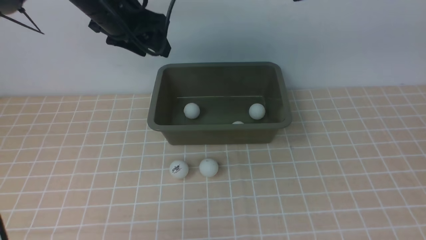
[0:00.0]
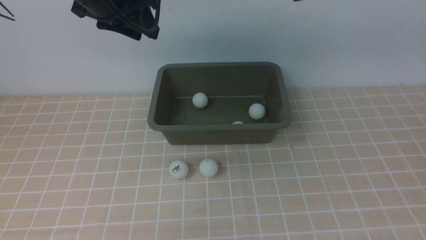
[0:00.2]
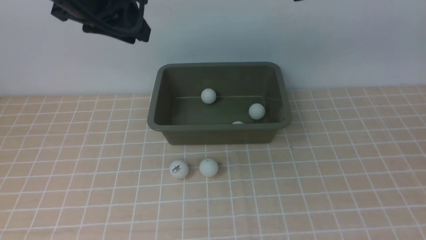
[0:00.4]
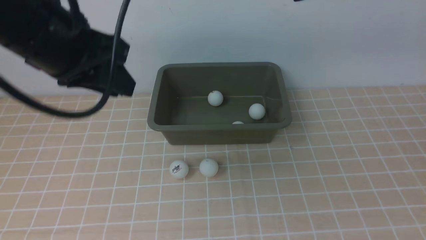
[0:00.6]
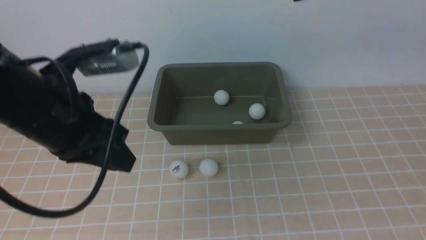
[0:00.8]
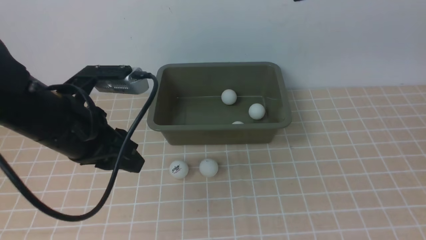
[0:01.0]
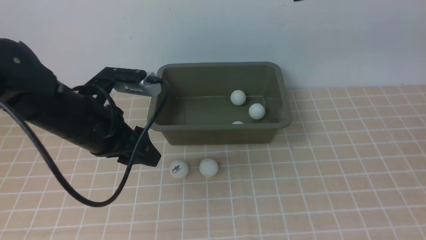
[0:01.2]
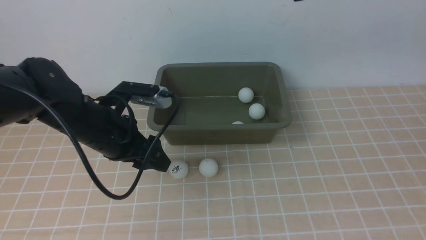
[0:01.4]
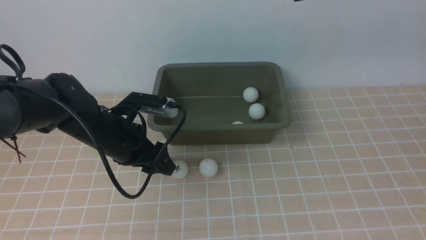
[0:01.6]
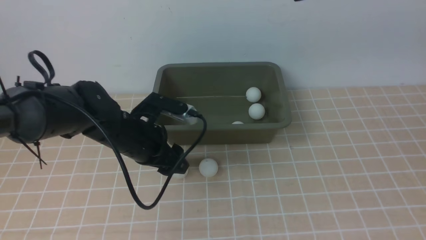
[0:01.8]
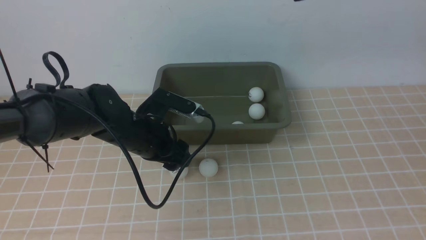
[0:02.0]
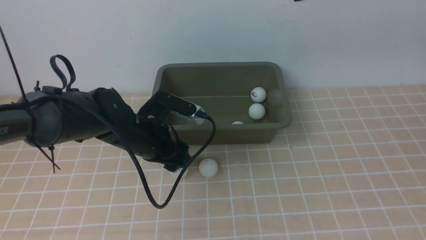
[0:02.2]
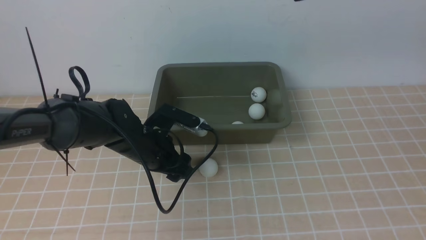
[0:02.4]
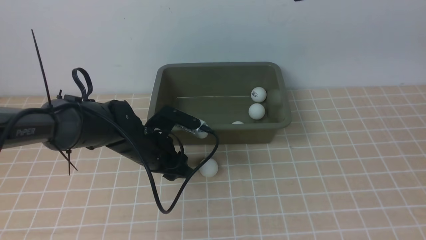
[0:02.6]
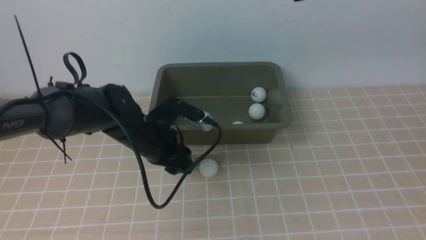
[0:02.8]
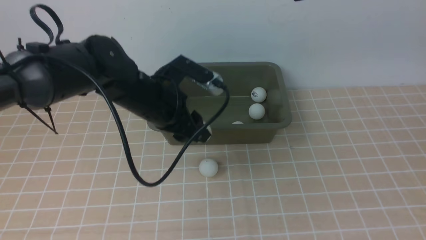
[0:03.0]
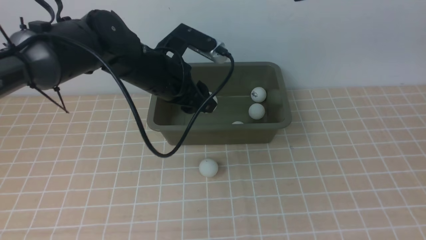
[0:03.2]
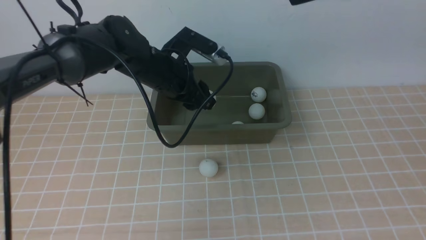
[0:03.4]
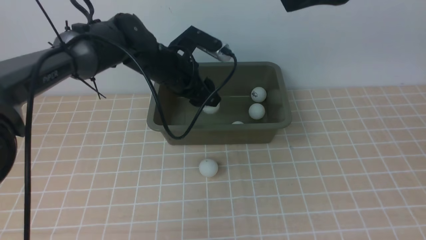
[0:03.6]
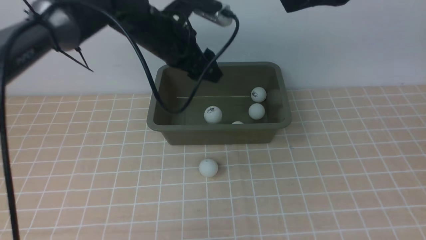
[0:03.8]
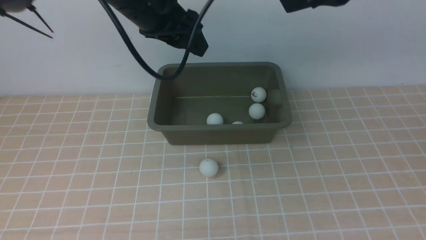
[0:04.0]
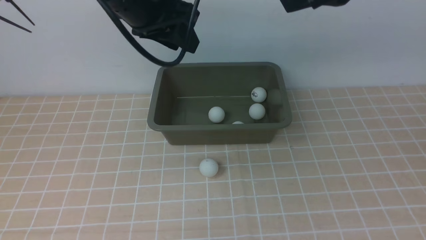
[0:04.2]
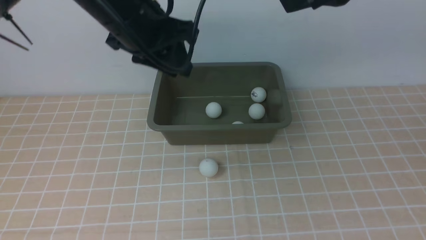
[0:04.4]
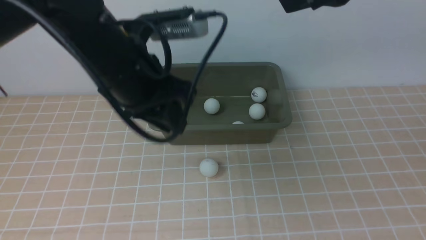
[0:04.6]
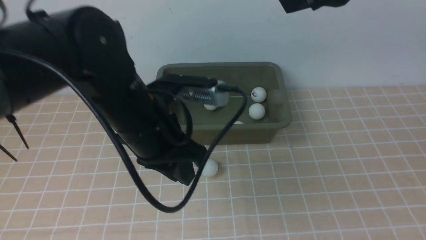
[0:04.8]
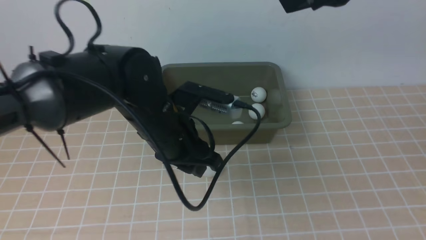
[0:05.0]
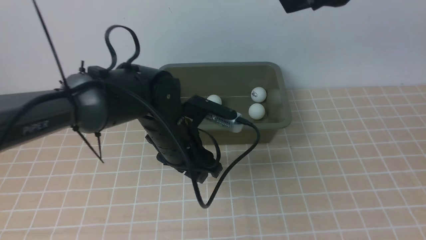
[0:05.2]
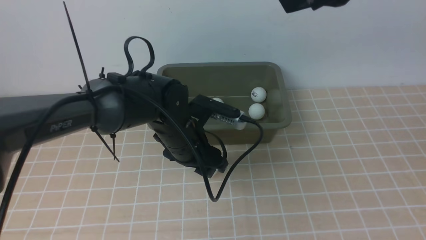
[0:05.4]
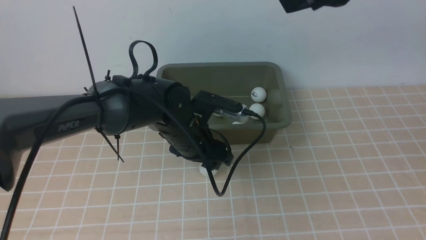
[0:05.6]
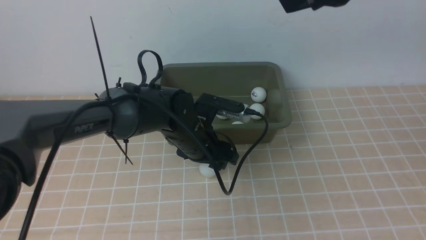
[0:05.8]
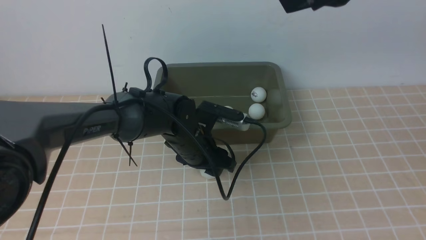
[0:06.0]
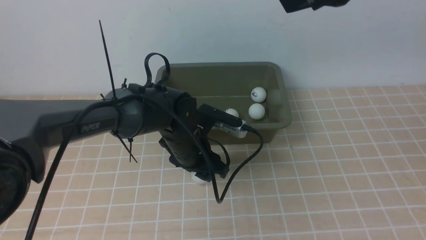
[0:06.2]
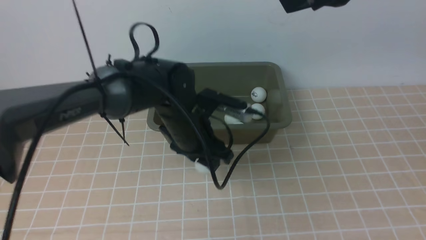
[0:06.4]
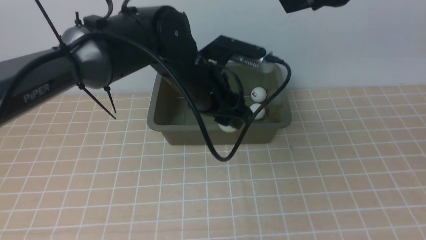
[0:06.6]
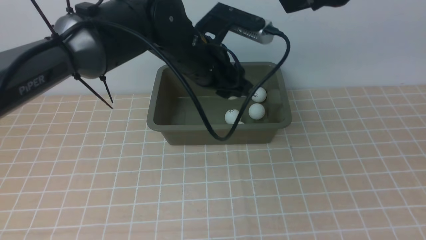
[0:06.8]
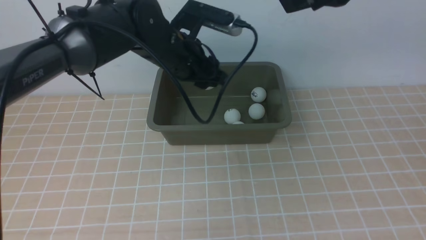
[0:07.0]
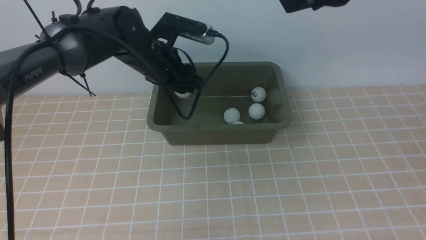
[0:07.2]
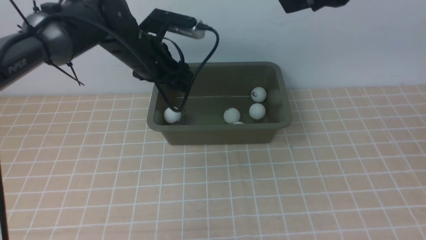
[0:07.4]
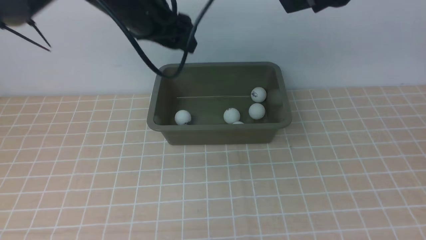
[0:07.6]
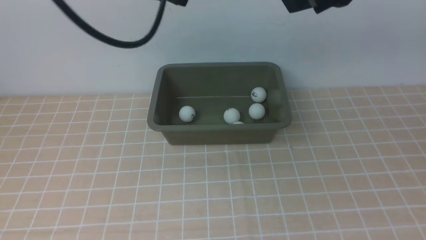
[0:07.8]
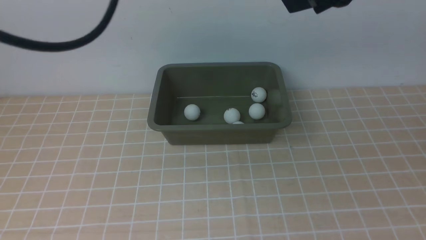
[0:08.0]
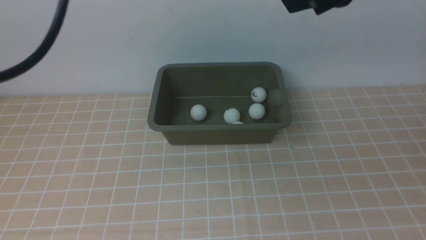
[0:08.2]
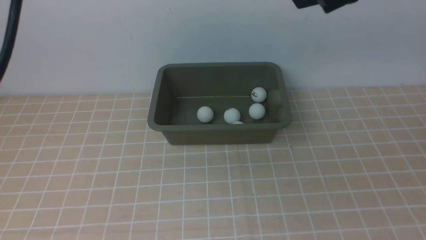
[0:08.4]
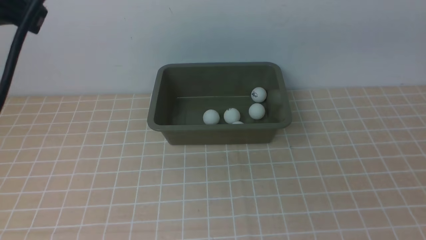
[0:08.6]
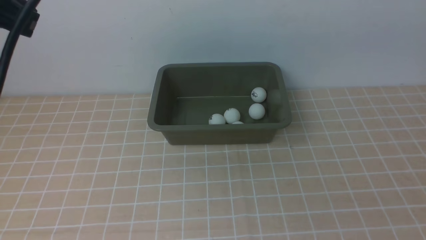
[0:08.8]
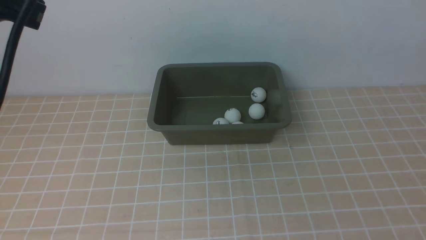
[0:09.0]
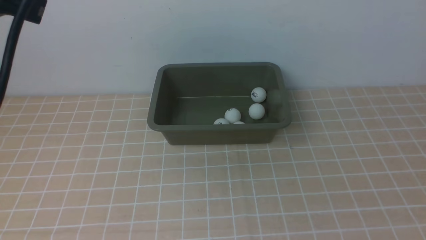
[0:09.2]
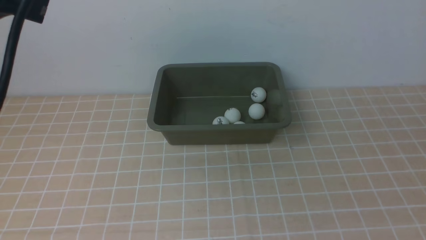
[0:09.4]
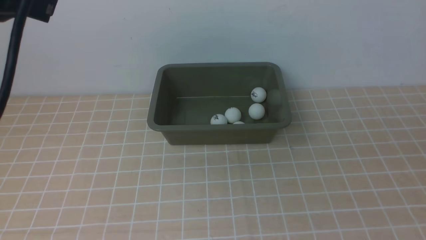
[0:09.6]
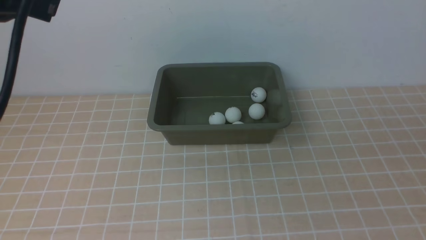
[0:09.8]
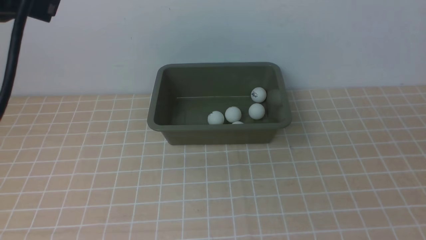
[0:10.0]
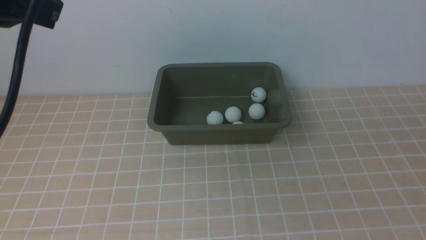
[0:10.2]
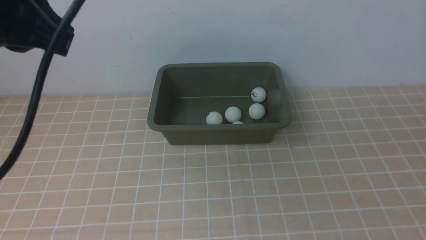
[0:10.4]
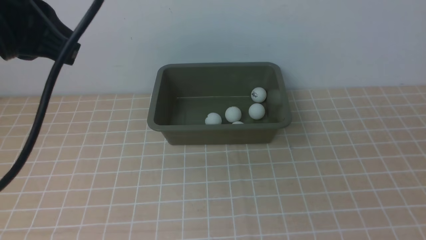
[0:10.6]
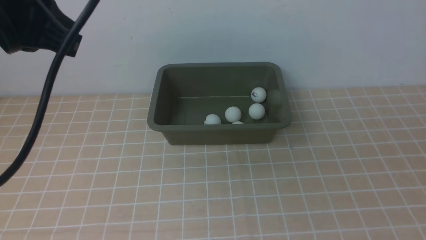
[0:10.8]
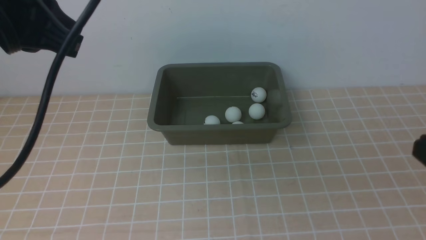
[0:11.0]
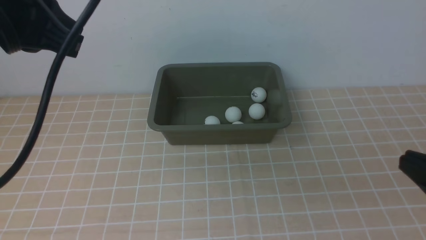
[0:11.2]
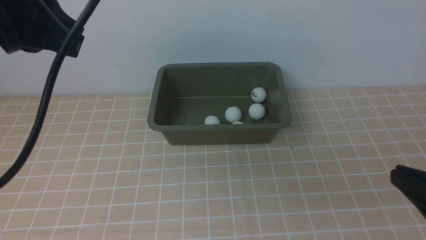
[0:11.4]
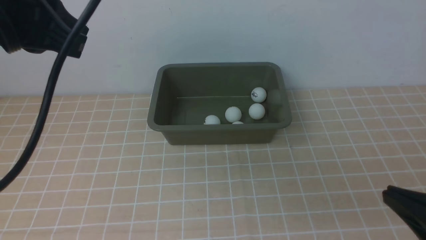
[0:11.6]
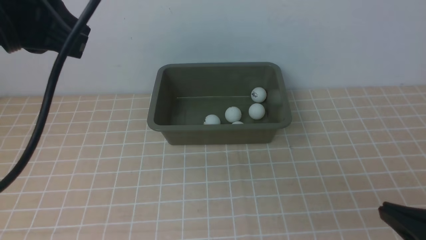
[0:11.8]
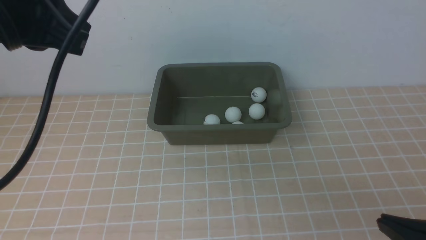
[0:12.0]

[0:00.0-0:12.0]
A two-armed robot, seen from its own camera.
Step, 0:00.4 to 0:03.0: use the left arm to clamp the table tennis ball closest to it.
Step, 0:03.2 to 0:04.0: use the left arm to put the table tennis ball into the box.
Step, 0:04.2 to 0:06.4: use the left arm to clamp the table tennis ball closest to it.
Step, 0:06.6 to 0:07.6: use the left arm to put the table tennis ball into the box.
0:00.0 to 0:01.6: The left gripper goes about 20 cm downward and backward, and closes and opens again.
0:01.6 to 0:03.0: The left gripper is displaced to the right by roughly 5 cm.
0:03.0 to 0:04.4: The left gripper moves upward, some 15 cm.
0:04.4 to 0:06.0: The left gripper shifts approximately 20 cm downward, and opens up.
0:06.0 to 0:07.6: The left gripper moves upward, about 25 cm.
0:07.6 to 0:09.0: The right gripper is displaced backward and to the right by approximately 15 cm. Meanwhile the left gripper heads backward, upward and to the left, covering roughly 20 cm, and closes.
0:10.4 to 0:12.0: The right gripper heads downward, covering approximately 15 cm.

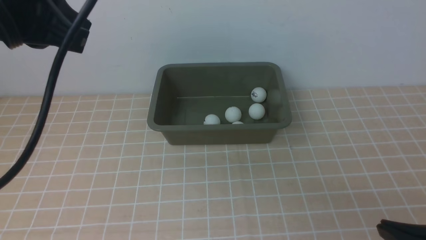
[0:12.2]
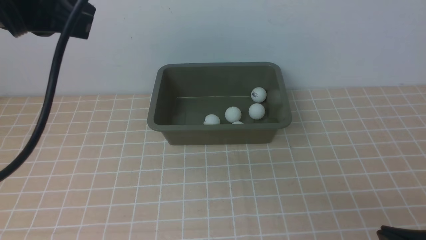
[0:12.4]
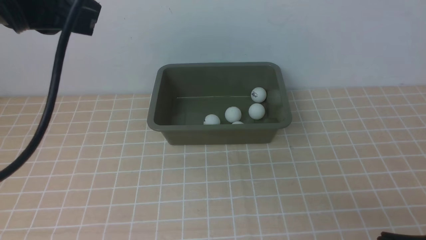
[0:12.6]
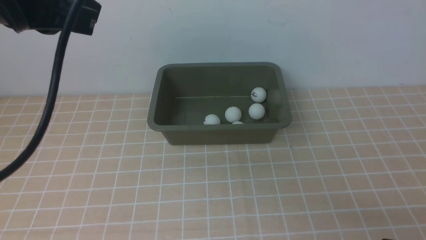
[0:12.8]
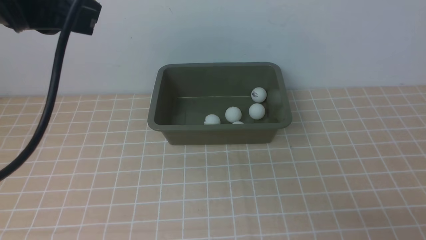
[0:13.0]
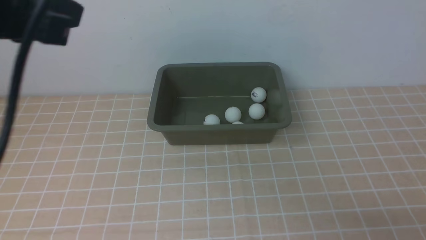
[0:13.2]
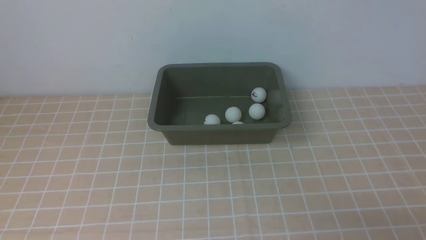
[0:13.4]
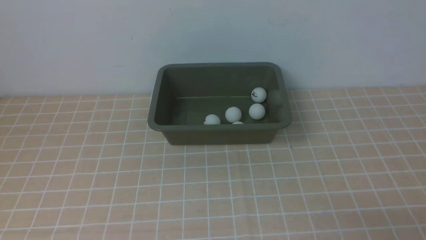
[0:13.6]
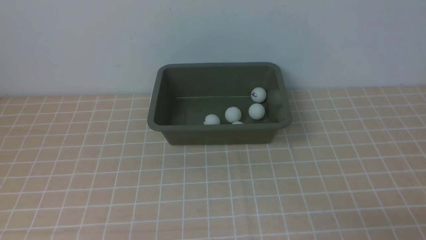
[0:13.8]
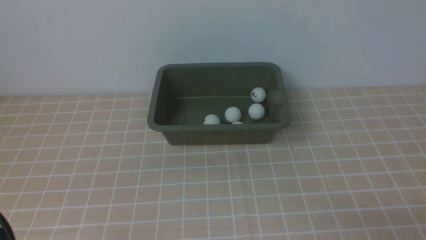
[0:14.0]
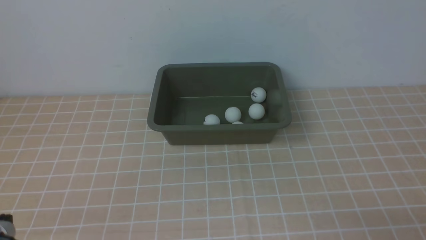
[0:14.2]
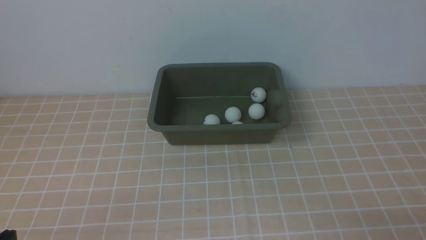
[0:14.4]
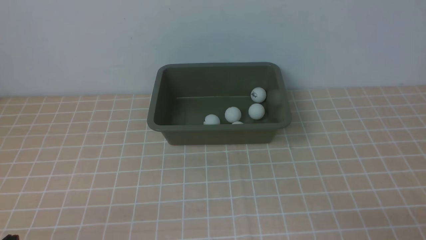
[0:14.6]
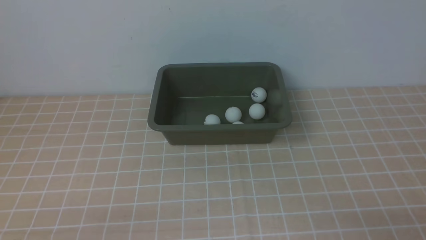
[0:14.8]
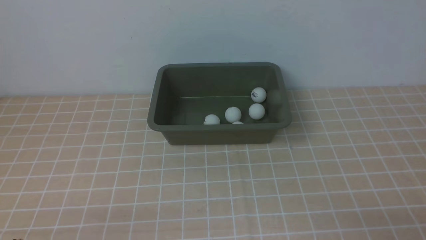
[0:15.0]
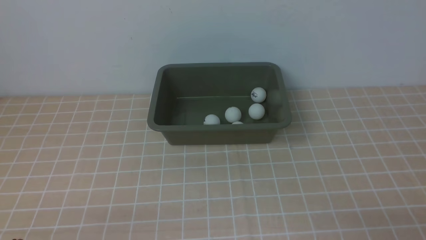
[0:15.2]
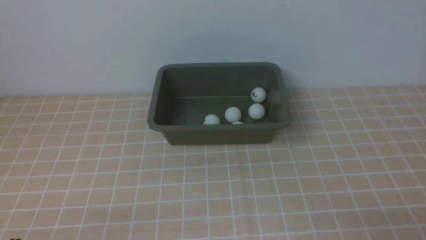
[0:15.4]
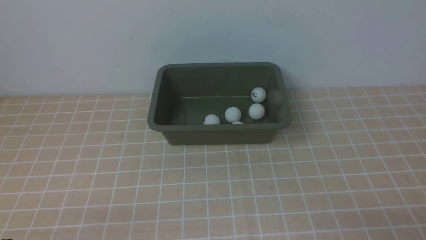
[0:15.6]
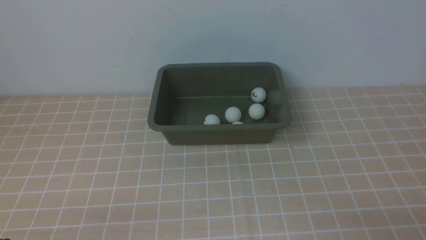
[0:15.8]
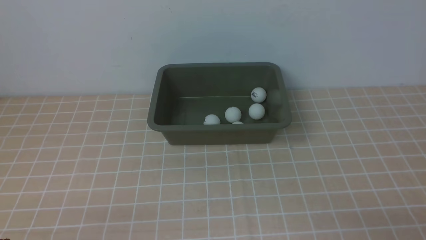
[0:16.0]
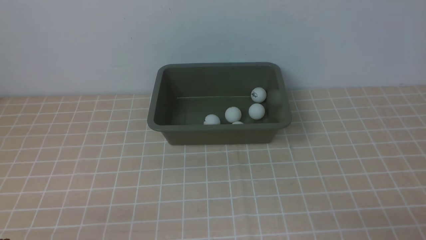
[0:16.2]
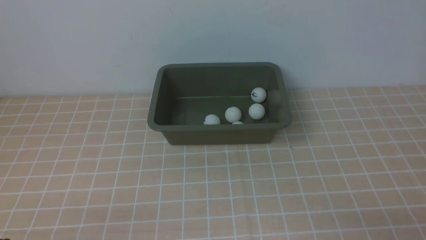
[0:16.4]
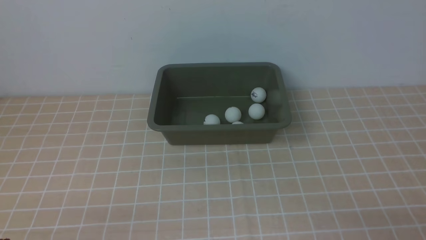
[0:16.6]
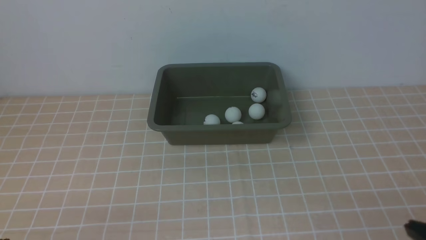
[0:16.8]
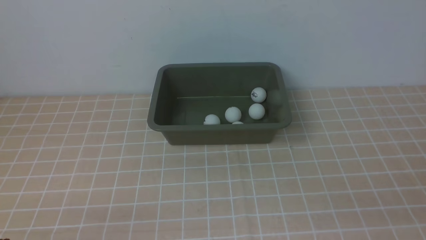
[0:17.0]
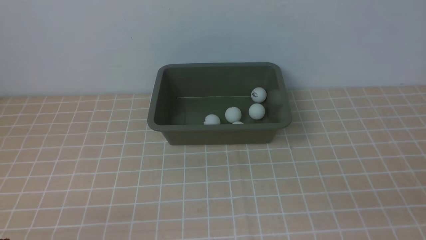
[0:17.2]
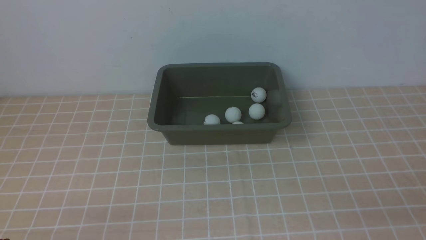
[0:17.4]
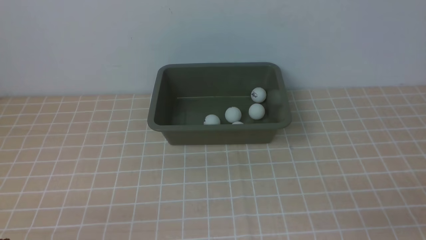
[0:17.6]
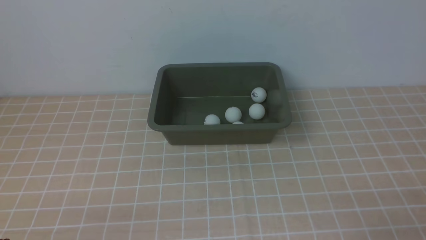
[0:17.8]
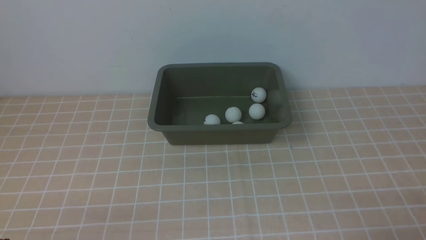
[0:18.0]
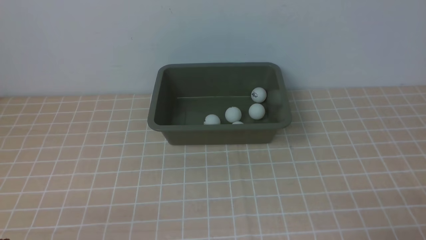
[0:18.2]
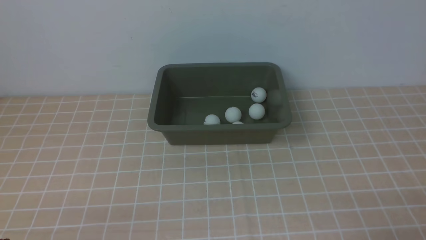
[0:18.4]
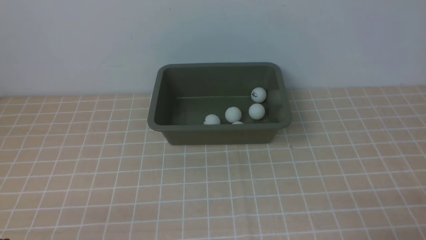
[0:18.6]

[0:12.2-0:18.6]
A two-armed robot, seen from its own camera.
0:12.2 to 0:13.8: The left gripper heads backward, downward and to the left, covering approximately 20 cm.
